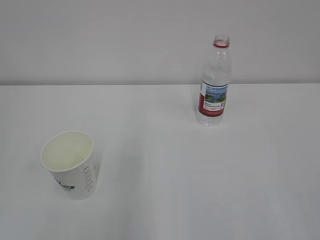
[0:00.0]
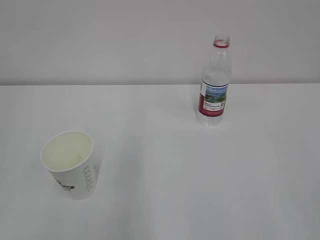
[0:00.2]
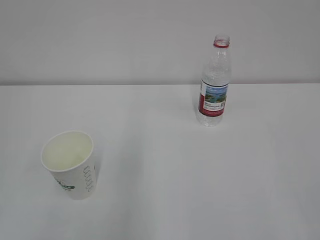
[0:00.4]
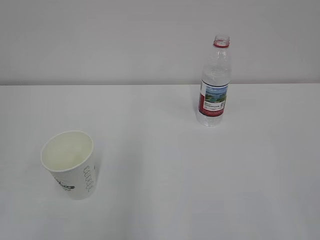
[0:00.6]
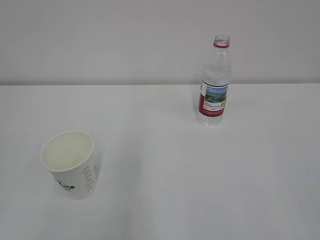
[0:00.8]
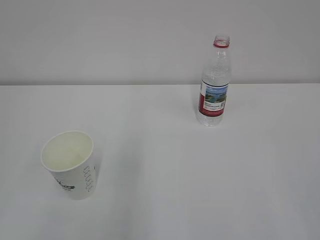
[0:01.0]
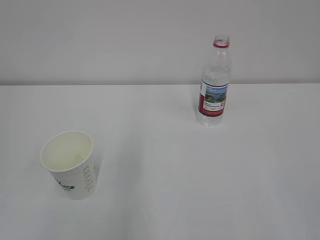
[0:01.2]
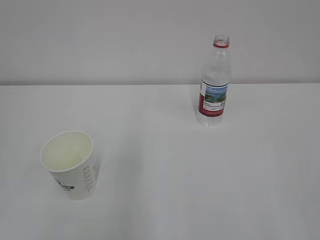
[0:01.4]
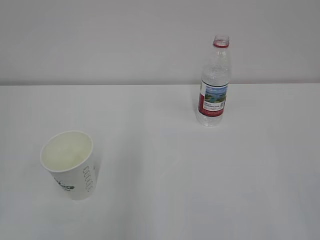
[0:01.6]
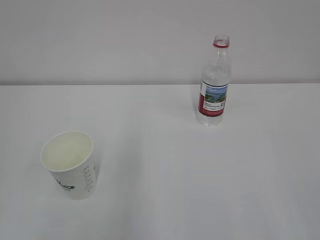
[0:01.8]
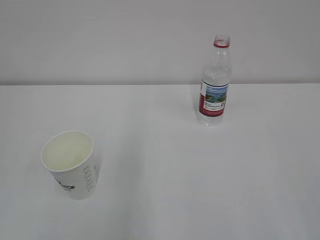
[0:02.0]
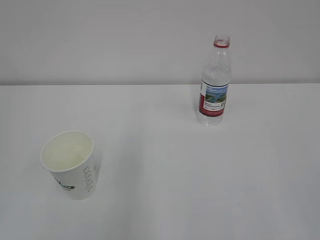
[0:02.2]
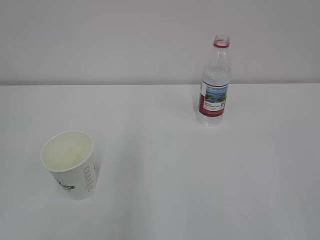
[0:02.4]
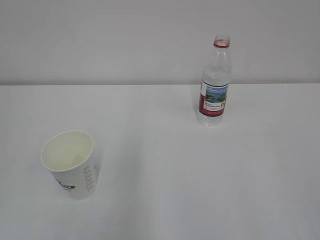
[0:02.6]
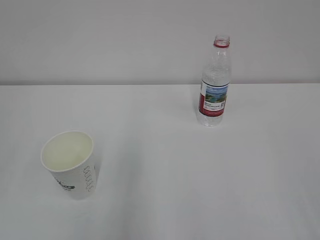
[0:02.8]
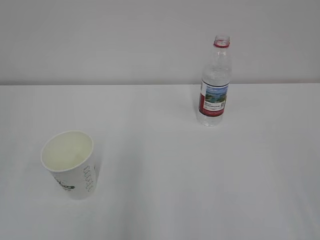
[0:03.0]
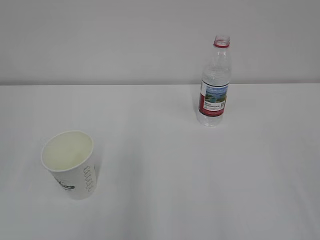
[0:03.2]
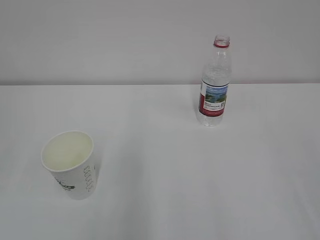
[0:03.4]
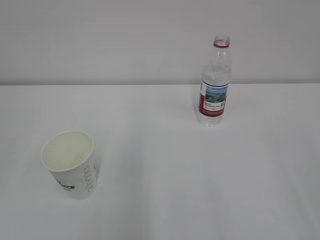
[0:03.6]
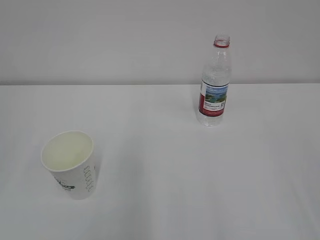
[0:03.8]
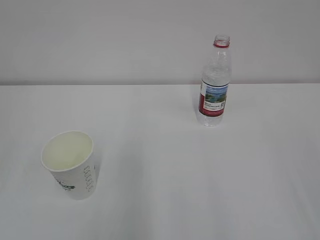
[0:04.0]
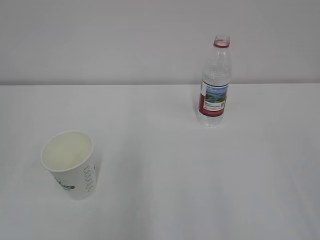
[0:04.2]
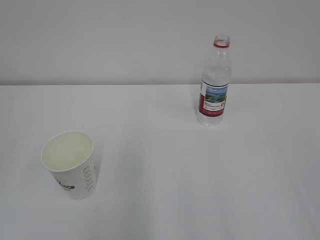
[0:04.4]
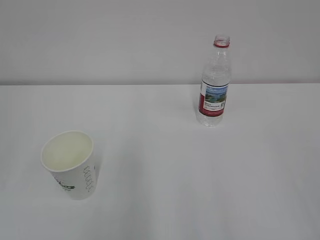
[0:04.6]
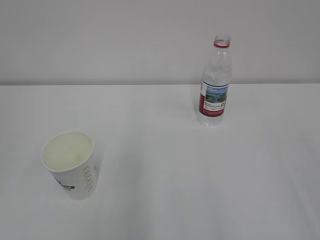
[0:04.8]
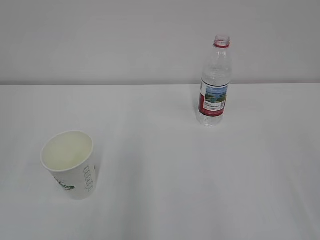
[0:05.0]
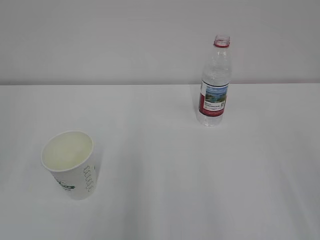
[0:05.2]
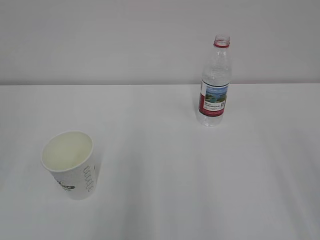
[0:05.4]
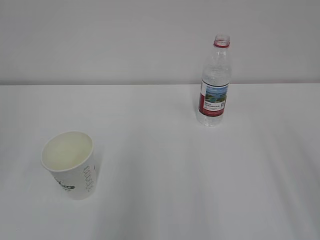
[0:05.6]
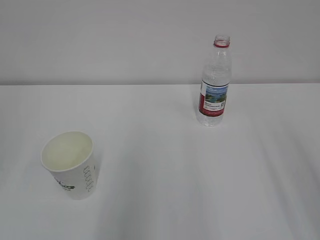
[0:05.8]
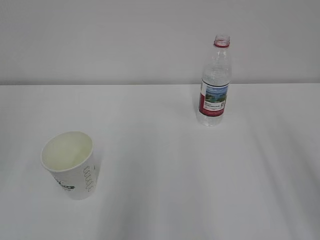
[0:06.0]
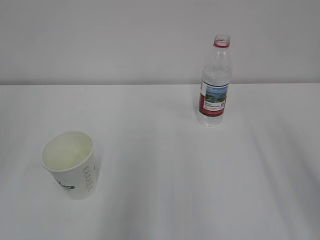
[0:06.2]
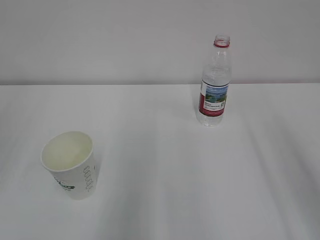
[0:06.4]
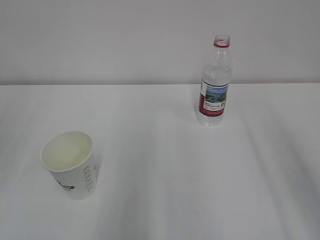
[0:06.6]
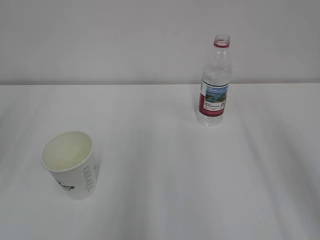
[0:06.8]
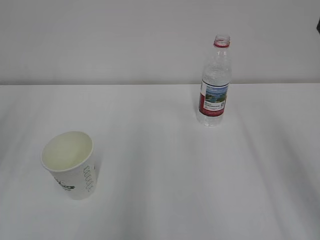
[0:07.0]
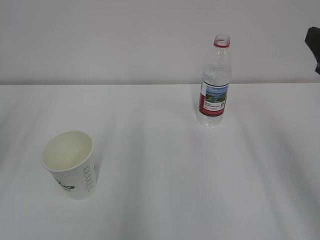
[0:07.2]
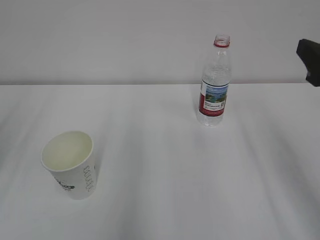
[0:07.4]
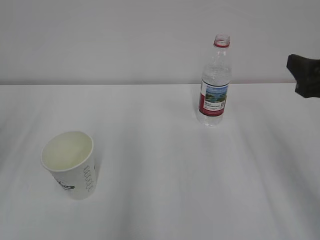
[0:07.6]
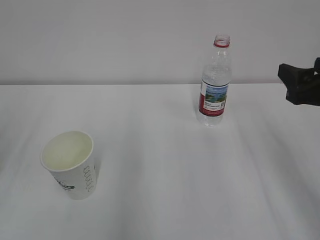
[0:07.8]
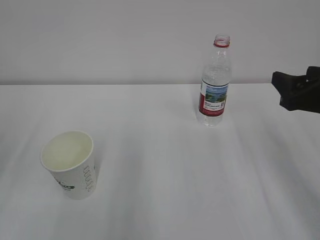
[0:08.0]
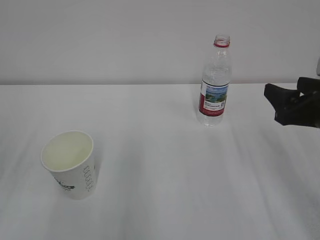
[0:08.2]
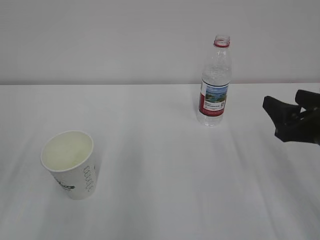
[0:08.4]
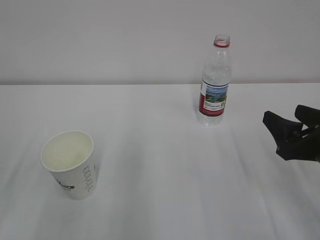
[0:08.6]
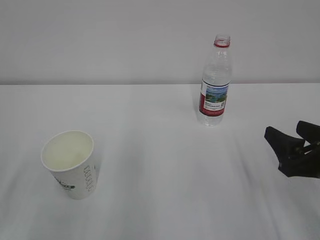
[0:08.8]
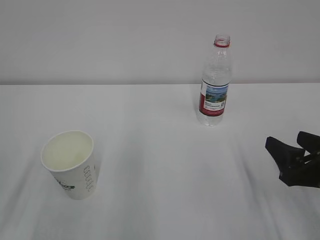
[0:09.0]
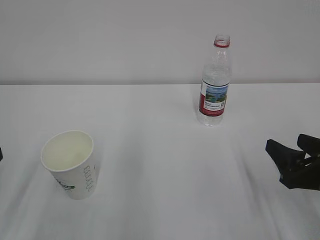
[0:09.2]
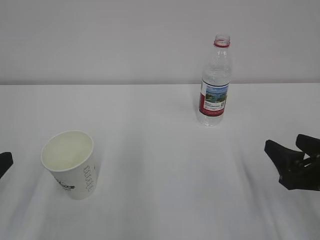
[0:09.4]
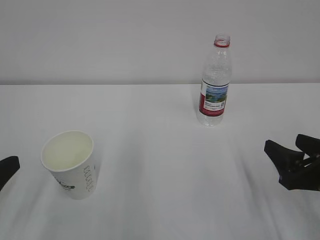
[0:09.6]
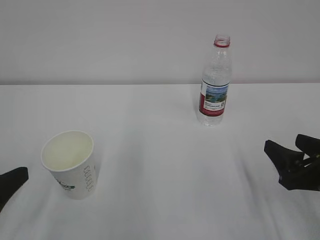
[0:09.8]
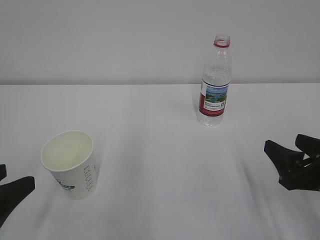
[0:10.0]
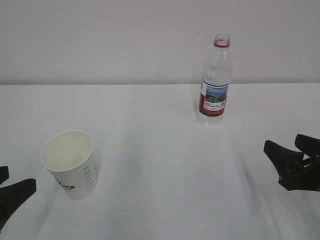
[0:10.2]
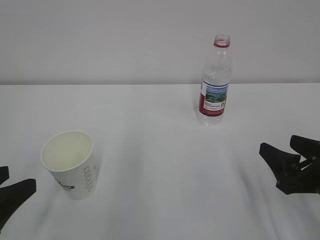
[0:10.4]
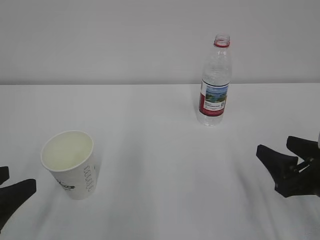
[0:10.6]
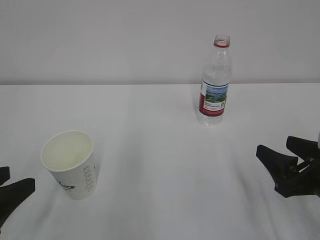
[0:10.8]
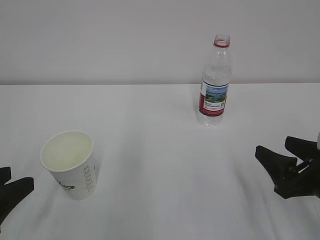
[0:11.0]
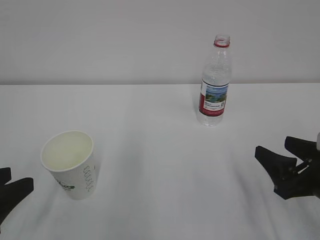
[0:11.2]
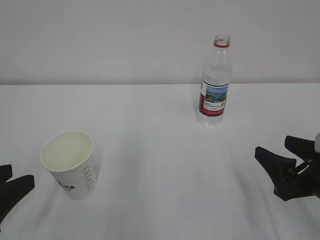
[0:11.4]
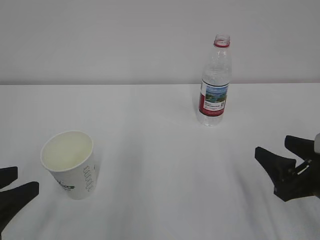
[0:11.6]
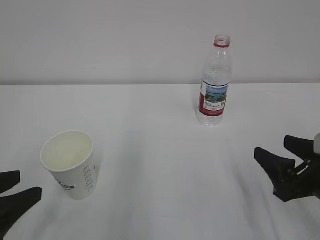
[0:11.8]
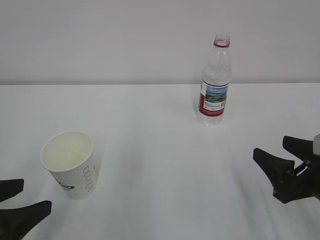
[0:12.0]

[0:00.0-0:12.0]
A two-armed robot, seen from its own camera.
0:06.0 to 0:07.6: The right gripper shifts about 15 cm forward and downward.
0:07.6 to 0:09.0: The right gripper is displaced downward by some 10 cm.
0:10.4 to 0:12.0: The left gripper opens.

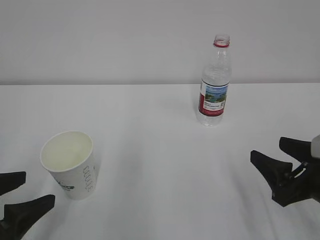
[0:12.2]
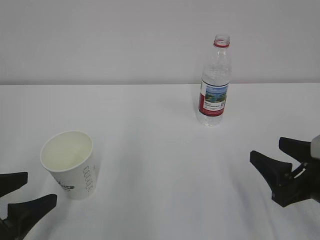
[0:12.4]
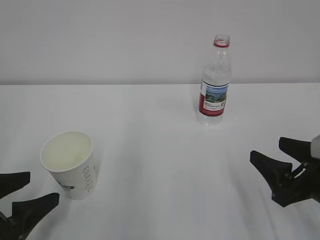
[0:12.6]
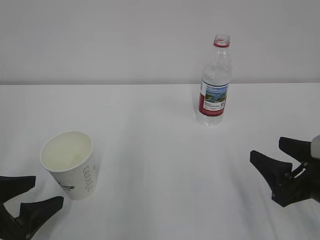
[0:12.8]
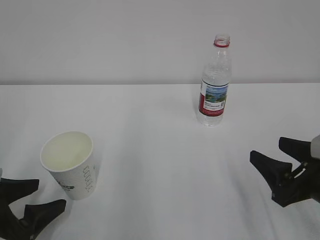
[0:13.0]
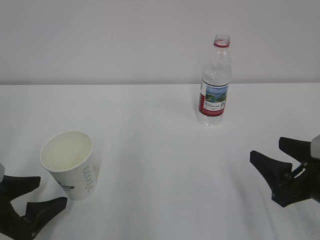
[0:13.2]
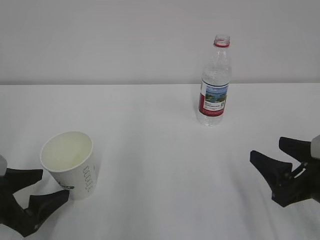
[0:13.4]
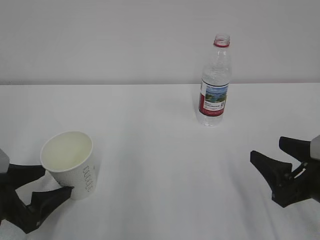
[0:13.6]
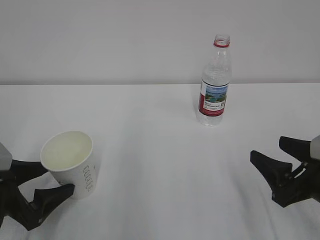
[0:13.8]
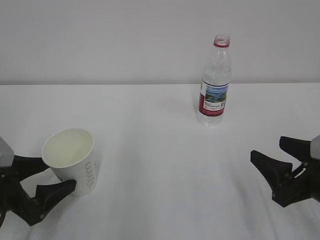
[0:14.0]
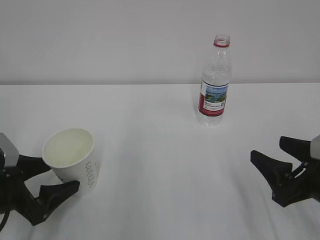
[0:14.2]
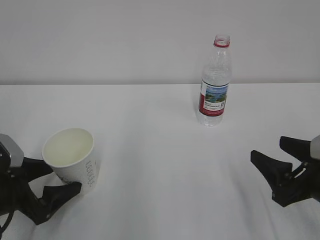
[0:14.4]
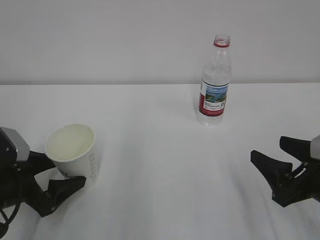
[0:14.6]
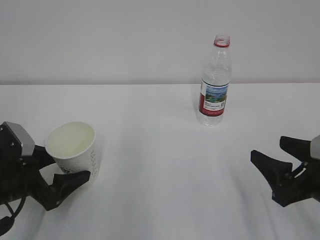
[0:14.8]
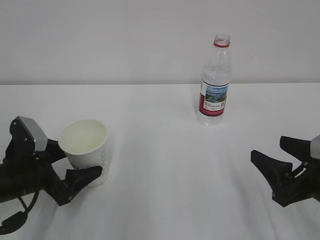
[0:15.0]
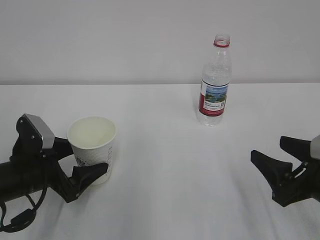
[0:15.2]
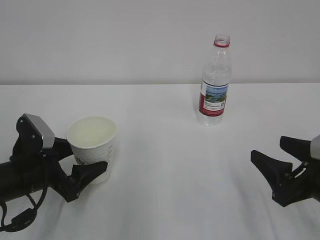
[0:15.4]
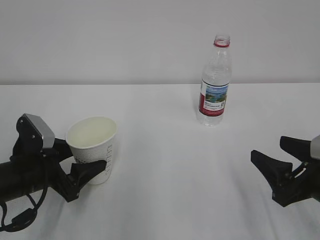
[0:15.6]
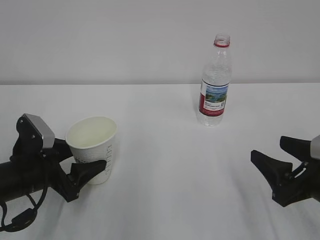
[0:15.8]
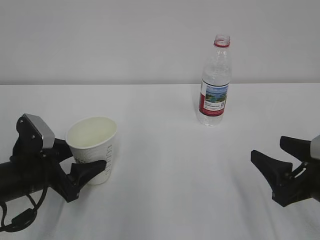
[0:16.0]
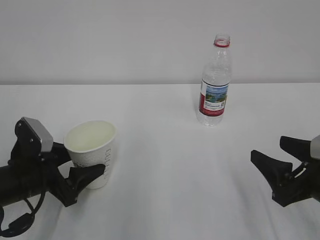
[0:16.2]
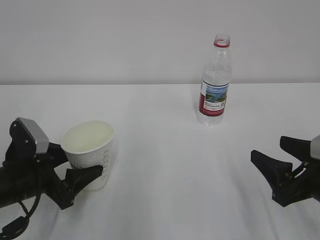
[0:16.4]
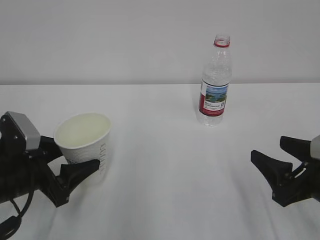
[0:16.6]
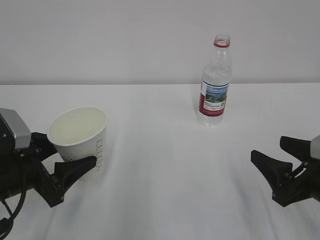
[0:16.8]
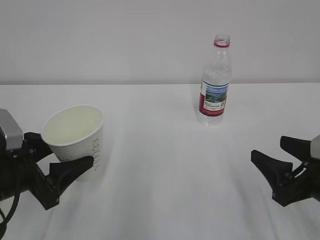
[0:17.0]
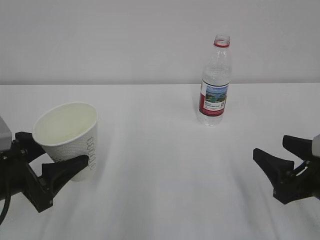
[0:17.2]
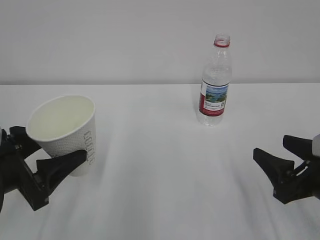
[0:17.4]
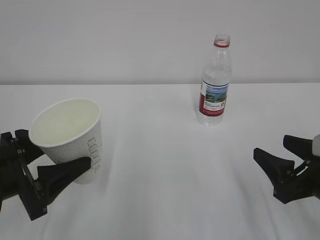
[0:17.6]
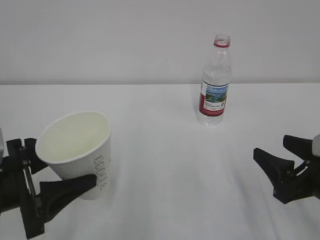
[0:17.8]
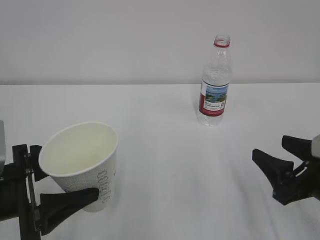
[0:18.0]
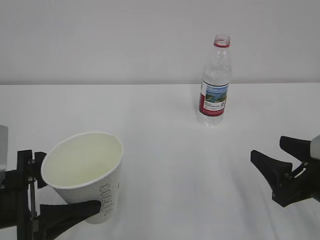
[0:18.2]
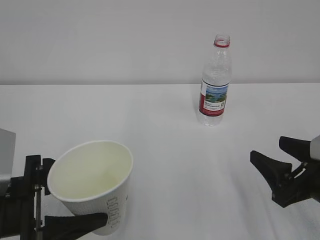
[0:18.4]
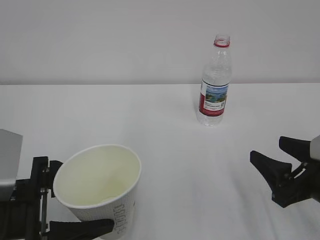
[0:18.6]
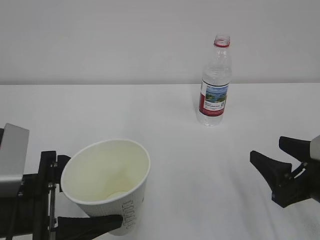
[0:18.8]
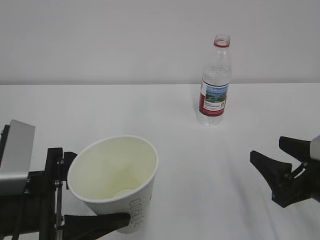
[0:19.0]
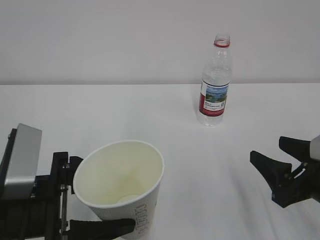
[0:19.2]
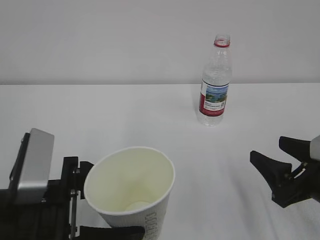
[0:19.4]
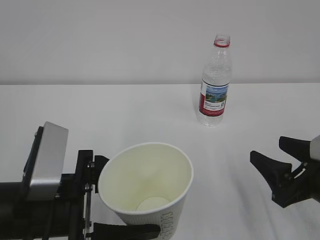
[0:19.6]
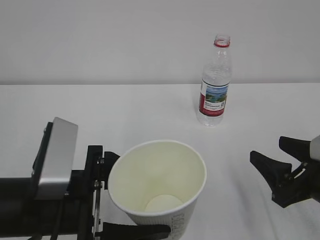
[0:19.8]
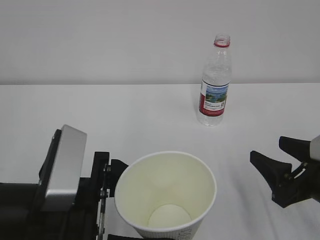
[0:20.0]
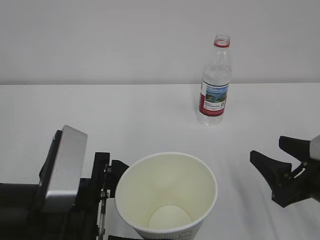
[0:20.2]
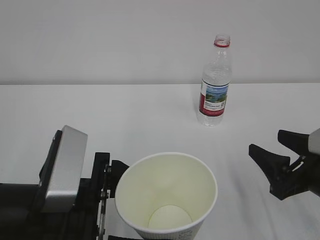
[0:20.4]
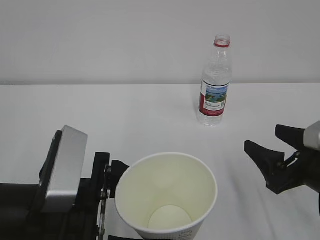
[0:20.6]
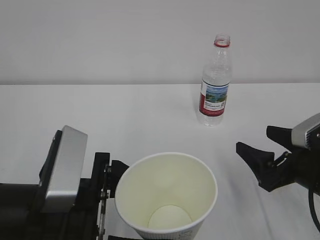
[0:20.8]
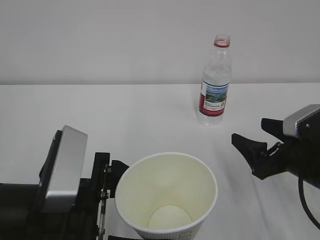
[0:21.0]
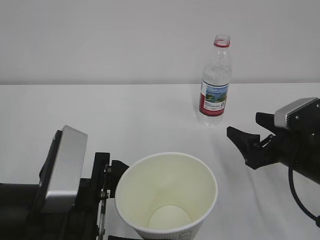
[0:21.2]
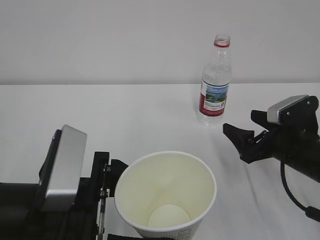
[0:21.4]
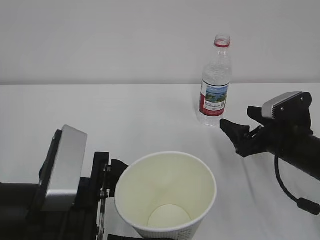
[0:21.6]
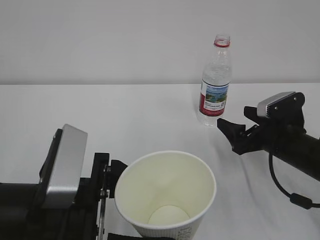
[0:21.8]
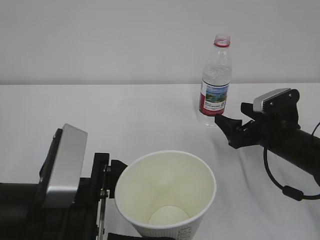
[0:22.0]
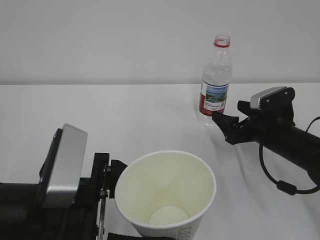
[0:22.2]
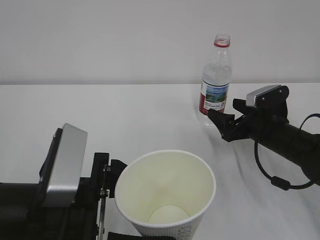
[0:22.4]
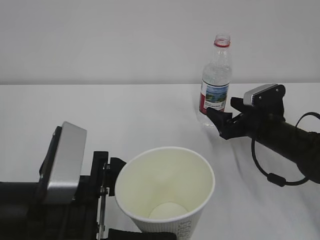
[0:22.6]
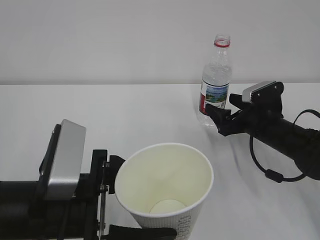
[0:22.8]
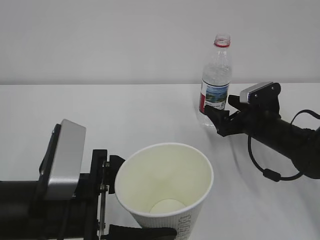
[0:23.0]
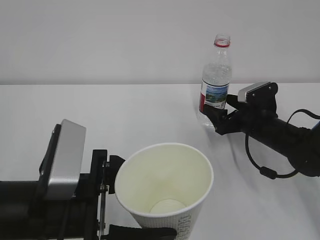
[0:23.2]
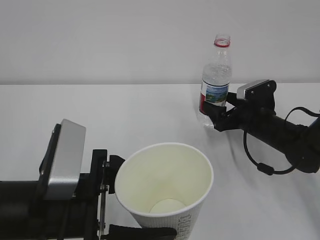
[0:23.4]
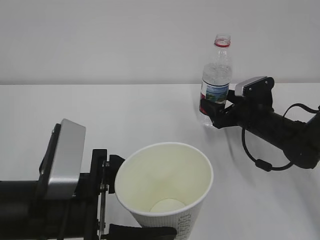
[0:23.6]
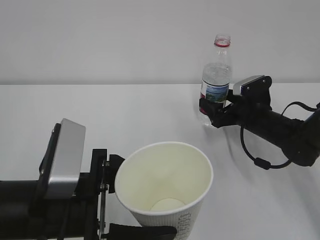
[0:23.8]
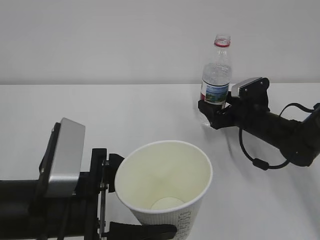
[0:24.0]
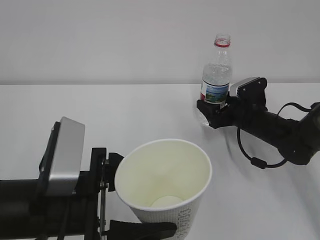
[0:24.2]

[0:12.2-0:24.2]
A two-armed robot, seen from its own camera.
0:12.2 to 0:13.8: The left gripper is displaced forward by about 5 cm.
0:13.8 to 0:15.2: The left gripper is displaced forward by about 5 cm.
0:15.2 to 0:16.6: The left gripper closes its fingers.
0:16.6 to 0:18.2: The left gripper heads backward, covering approximately 5 cm.
0:18.2 to 0:19.8: The left gripper shifts some 10 cm to the right.
0:19.8 to 0:21.2: The right gripper shifts roughly 5 cm forward, and opens.
0:21.2 to 0:22.6: The right gripper is displaced forward by roughly 10 cm.
0:22.6 to 0:24.2: The right gripper ends up approximately 5 cm from where it was.
